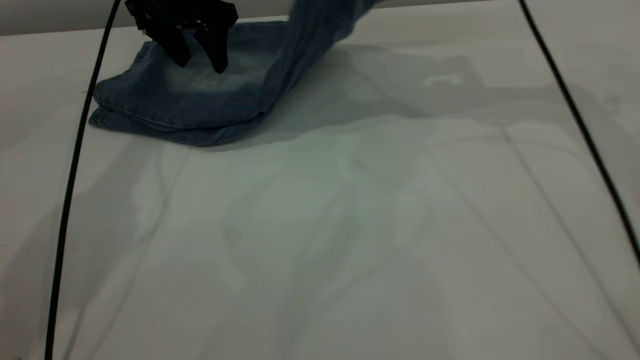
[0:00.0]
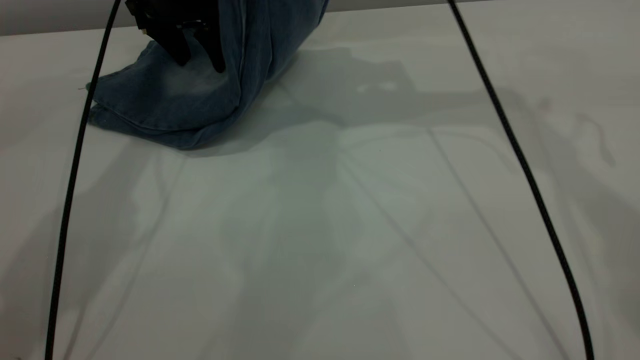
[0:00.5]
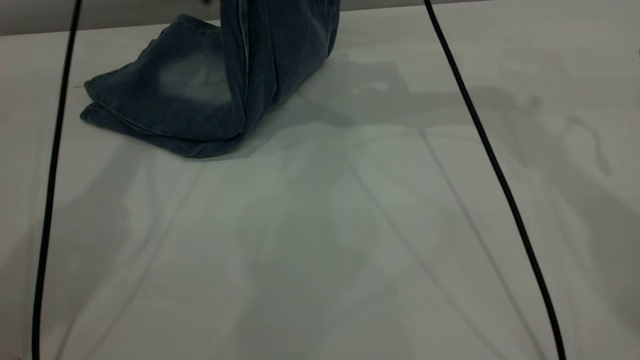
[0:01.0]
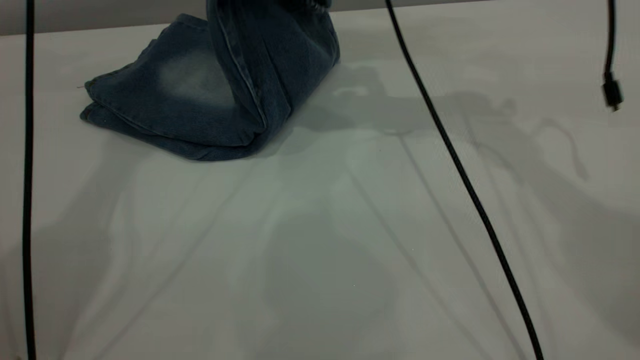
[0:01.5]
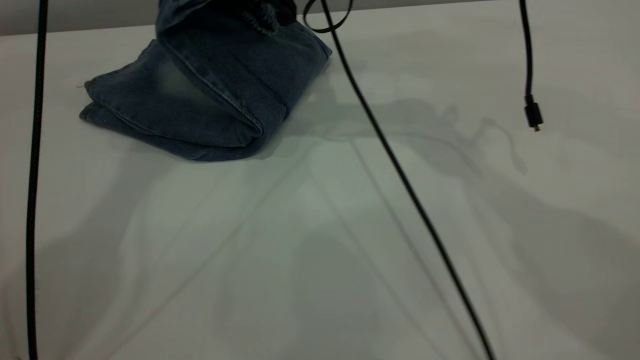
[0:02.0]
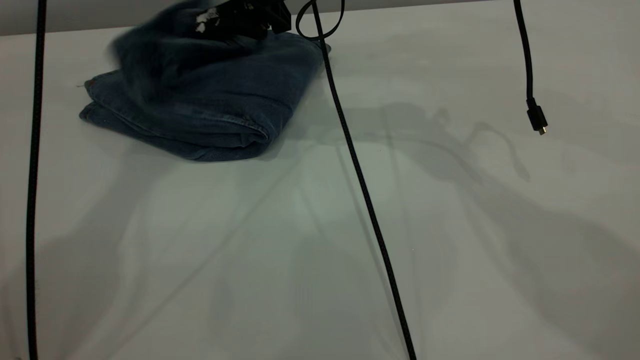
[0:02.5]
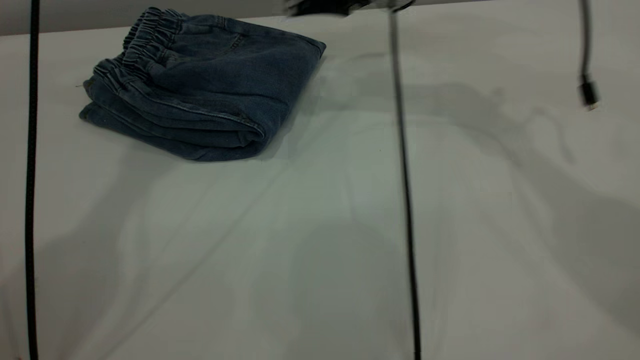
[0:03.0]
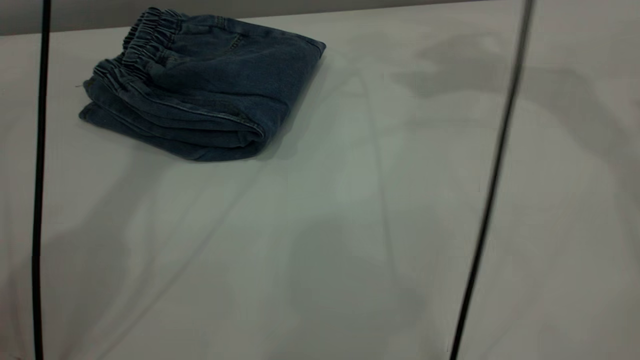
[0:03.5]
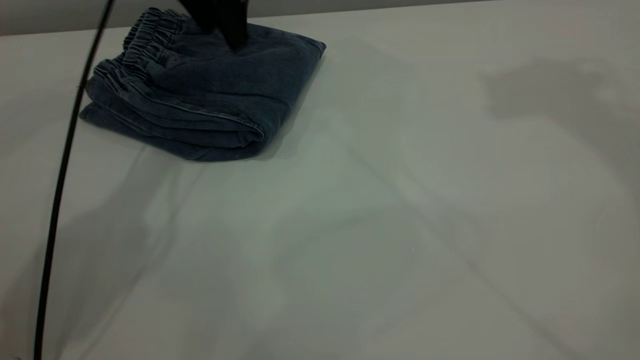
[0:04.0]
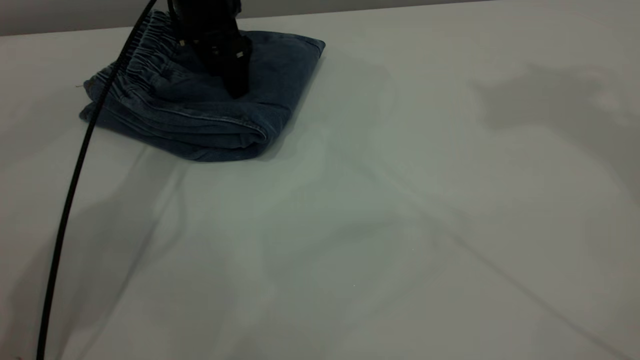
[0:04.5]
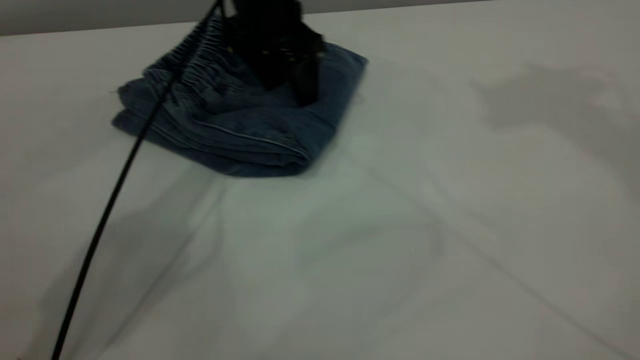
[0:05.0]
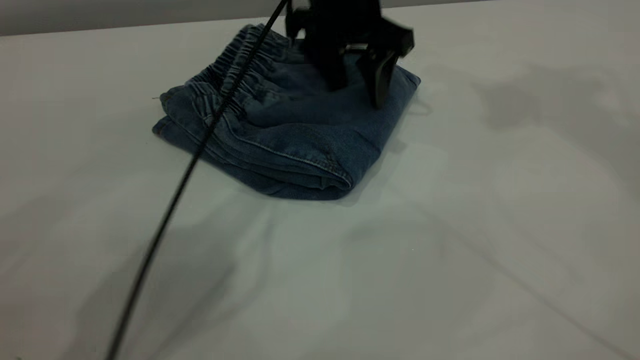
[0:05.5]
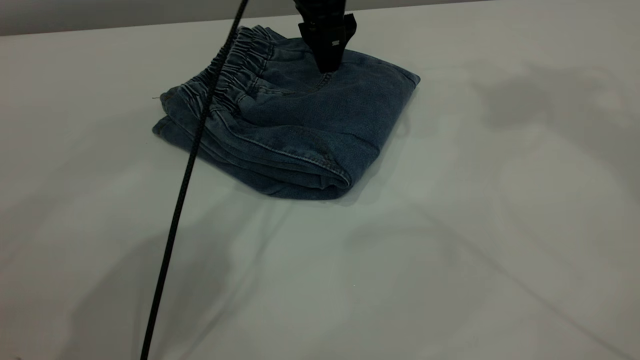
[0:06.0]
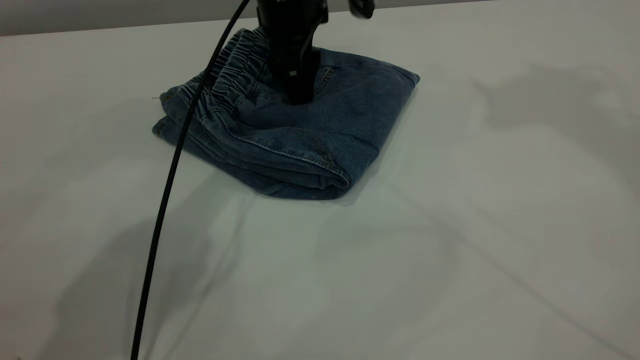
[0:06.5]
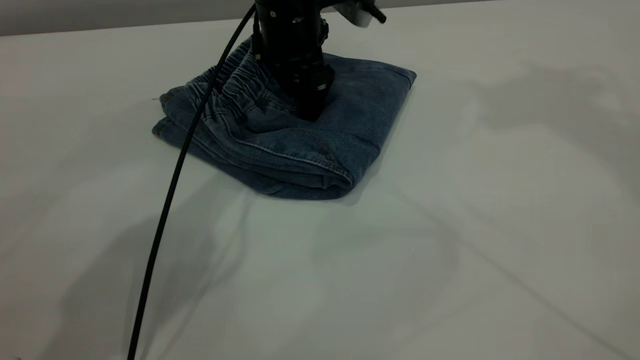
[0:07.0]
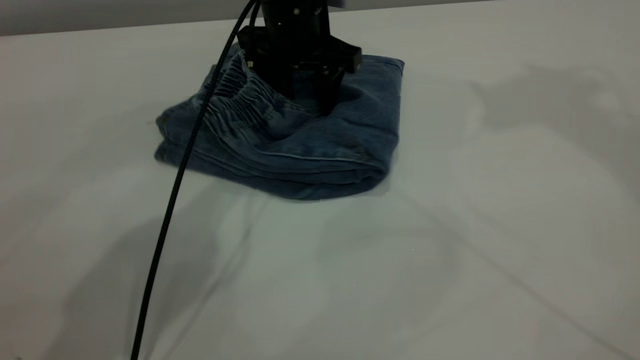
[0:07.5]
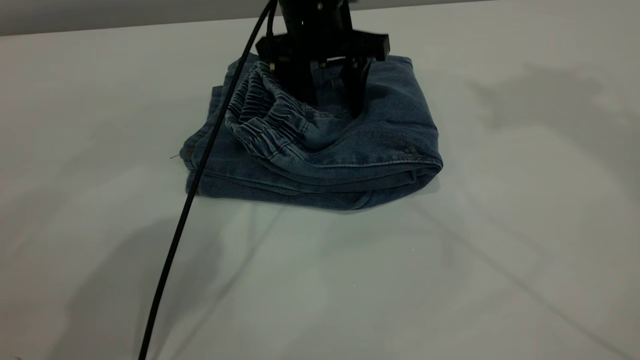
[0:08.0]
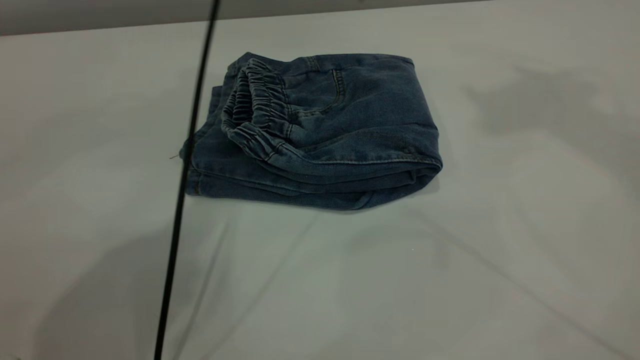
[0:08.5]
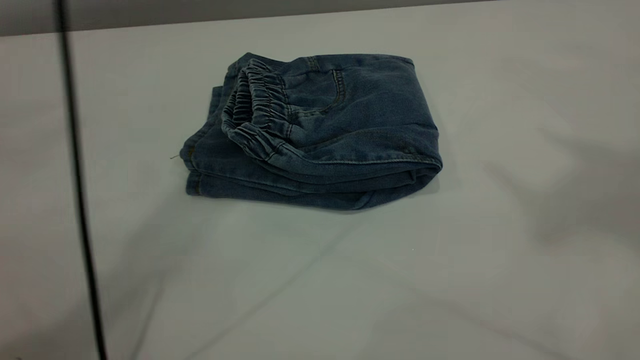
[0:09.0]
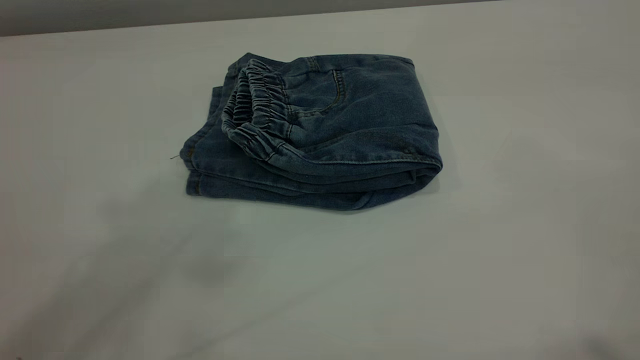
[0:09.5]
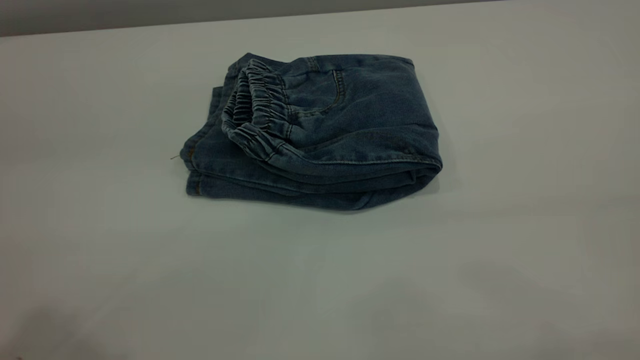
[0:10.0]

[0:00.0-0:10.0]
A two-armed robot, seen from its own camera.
Step, 0:00.0 to 0:03.0: Fold your pants from right to left.
0:00.0 to 0:02.0: The right gripper shifts about 15 cm to the left; the left gripper goes some 25 cm upward.
0:02.0 to 0:04.0: The right gripper shifts approximately 40 cm upward and to the right, and opens. Meanwhile the left gripper heads downward, covering roughly 20 cm.
0:04.0 to 0:06.0: The left gripper is displaced to the right by approximately 15 cm.
0:08.0 to 0:10.0: The left gripper heads backward, upward and to the left, covering approximately 50 cm; the right gripper goes approximately 35 cm backward.

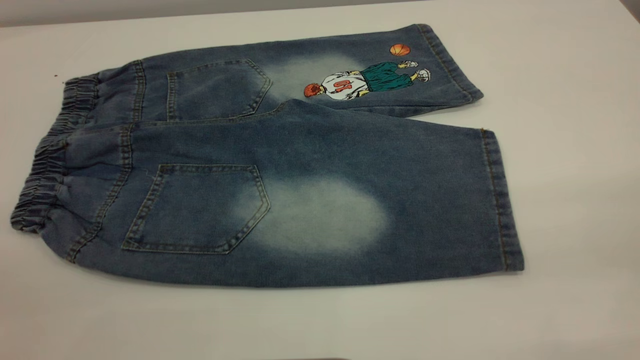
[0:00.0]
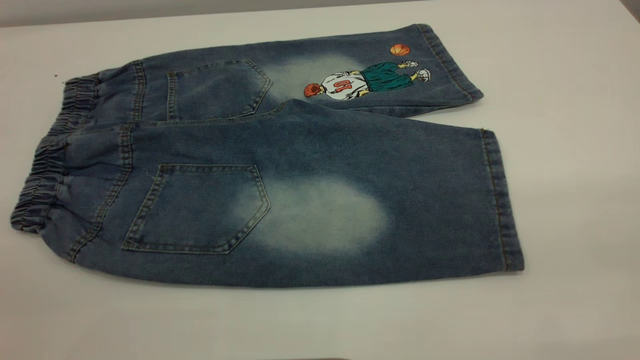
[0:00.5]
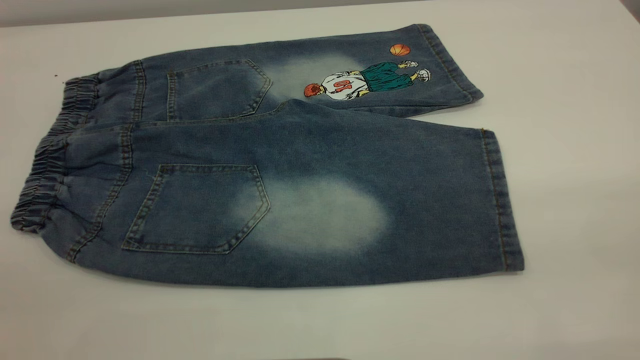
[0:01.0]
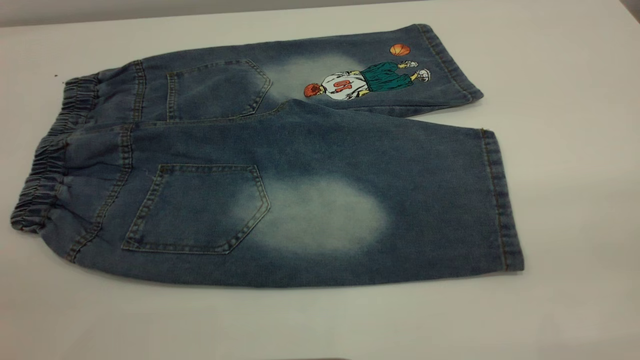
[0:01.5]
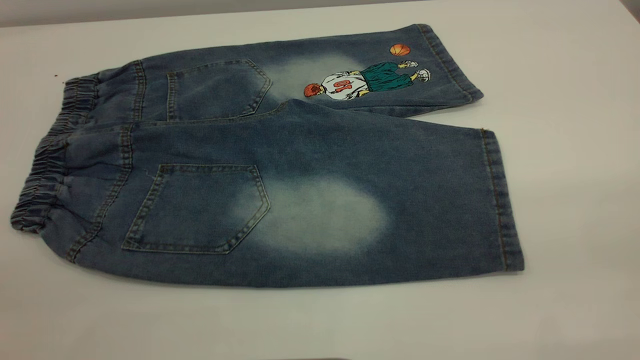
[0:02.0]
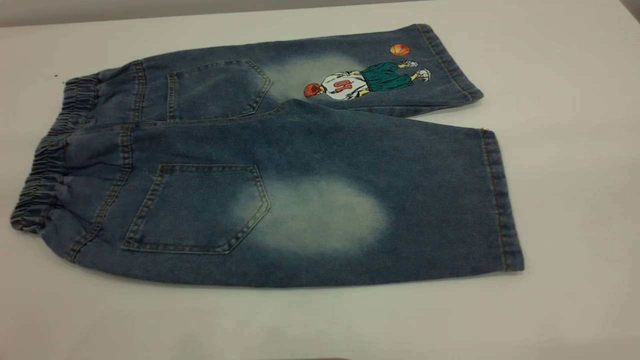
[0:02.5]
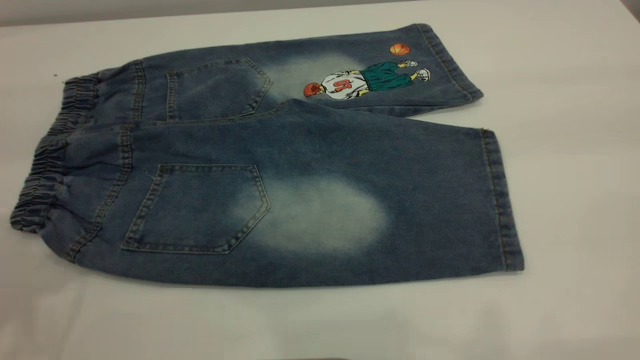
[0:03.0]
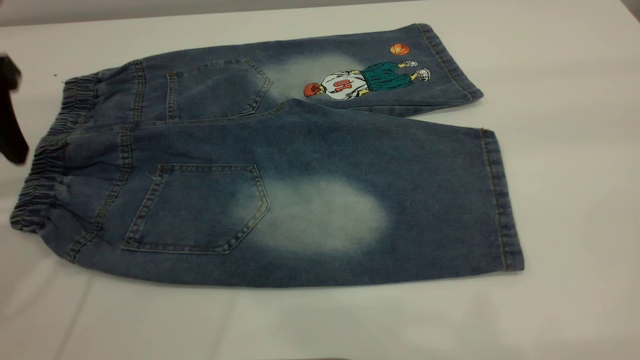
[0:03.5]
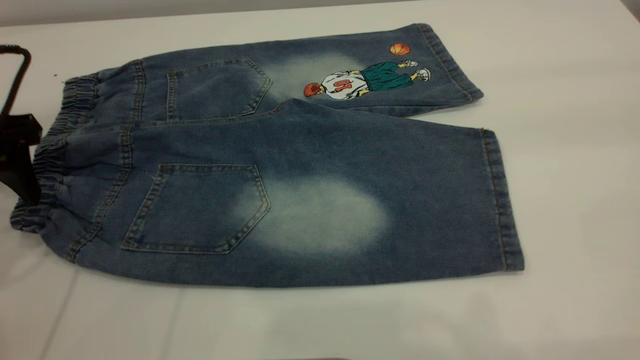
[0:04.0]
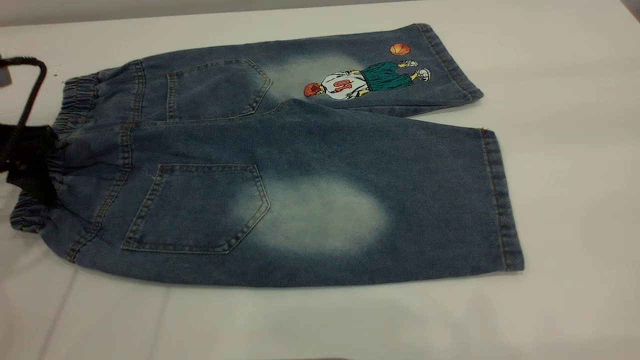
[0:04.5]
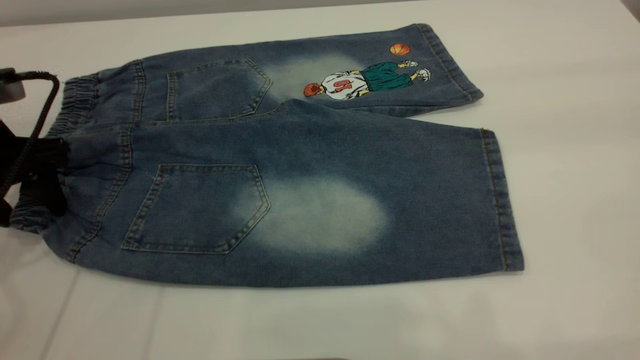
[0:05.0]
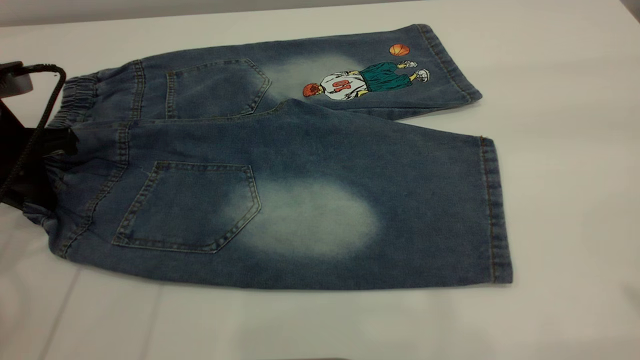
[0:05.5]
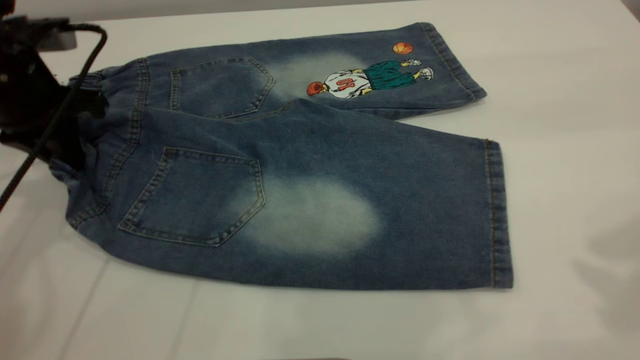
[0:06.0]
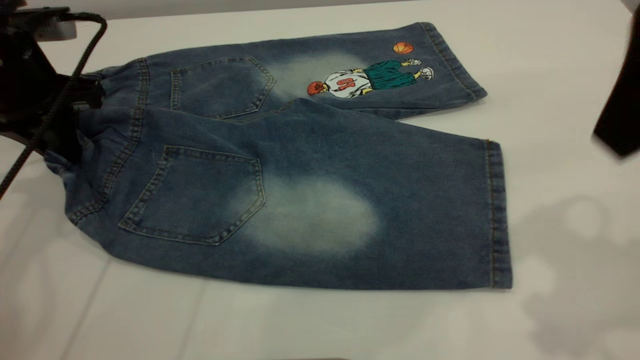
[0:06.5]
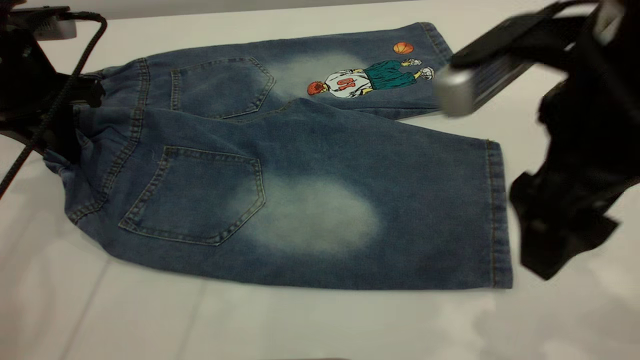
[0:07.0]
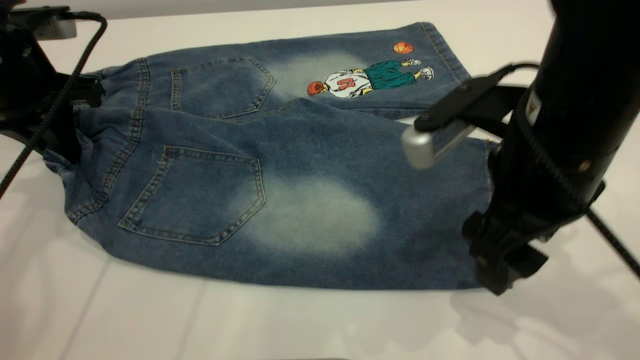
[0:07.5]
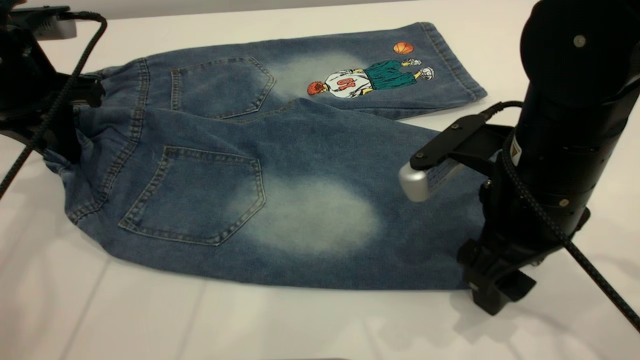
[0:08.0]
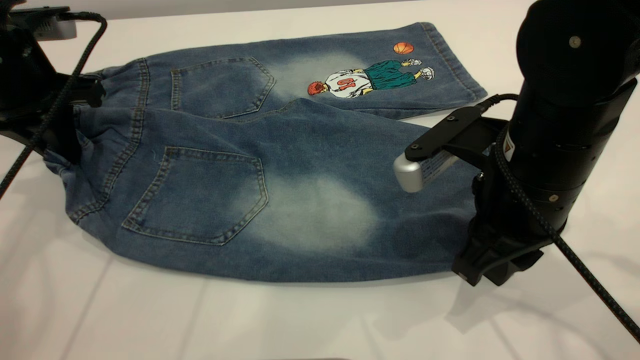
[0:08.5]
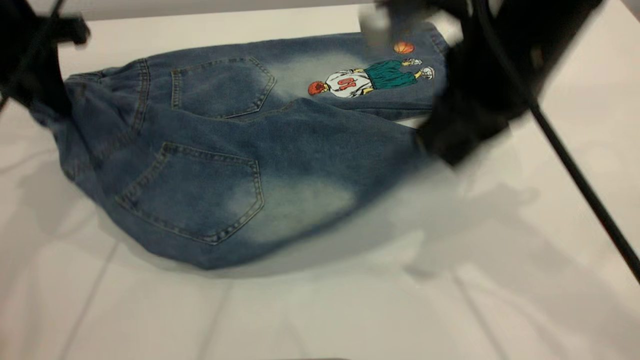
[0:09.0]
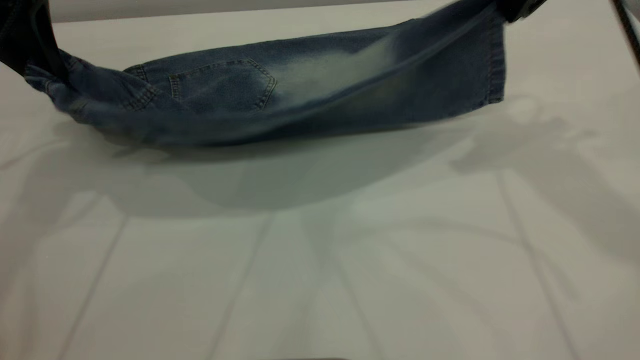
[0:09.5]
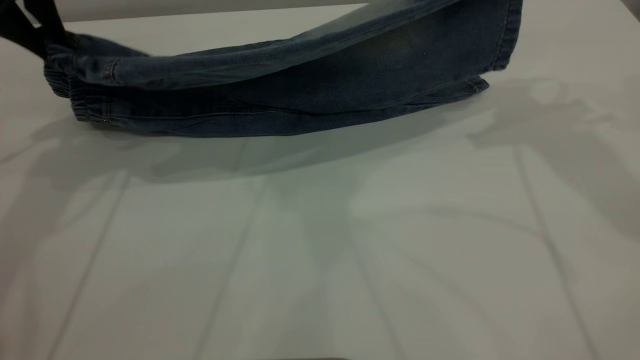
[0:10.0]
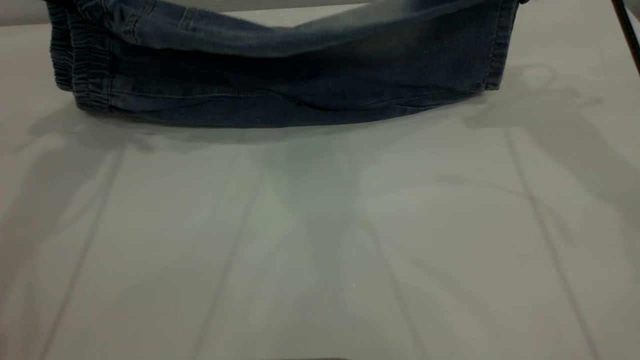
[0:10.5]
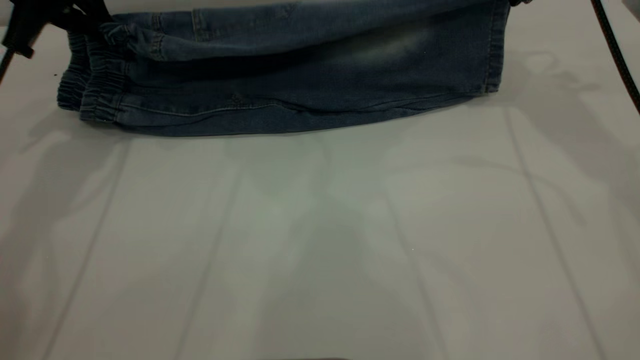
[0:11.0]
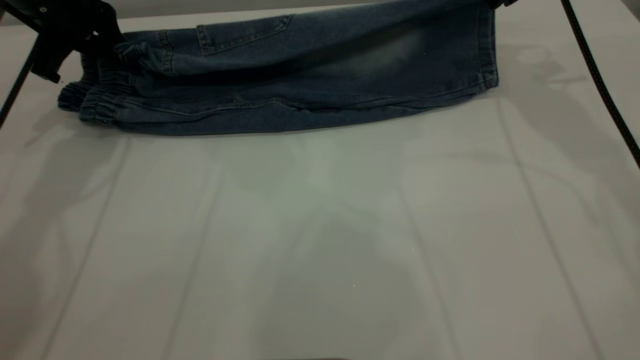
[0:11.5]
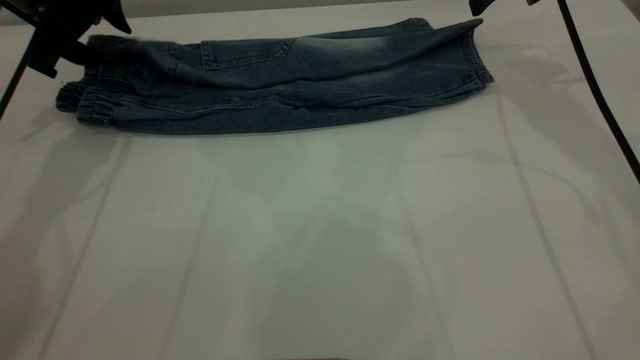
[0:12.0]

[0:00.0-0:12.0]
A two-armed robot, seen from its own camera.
0:00.0 to 0:02.0: Both grippers stay put.
0:02.0 to 0:04.0: The left gripper goes about 35 cm forward and downward.
0:04.0 to 0:06.0: Both grippers move forward, approximately 5 cm. The left gripper closes its fingers.
0:06.0 to 0:08.0: The right gripper is displaced downward and to the left by approximately 30 cm.
0:08.0 to 0:10.0: The right gripper heads upward, forward and to the right, covering some 25 cm, and closes up. The left gripper travels upward by some 10 cm.
0:10.0 to 0:12.0: The right gripper goes approximately 10 cm forward and downward, and opens its fingers; the left gripper goes roughly 10 cm downward and forward, and opens its fingers.
